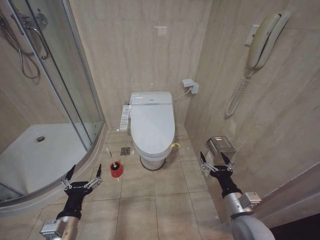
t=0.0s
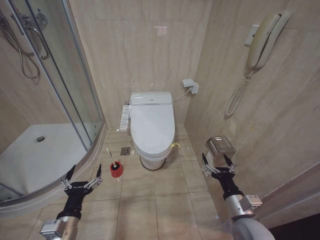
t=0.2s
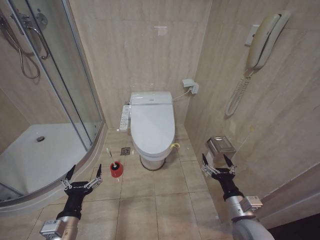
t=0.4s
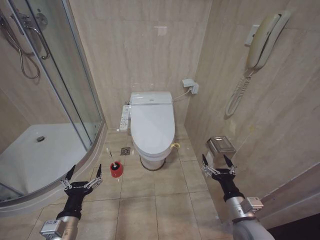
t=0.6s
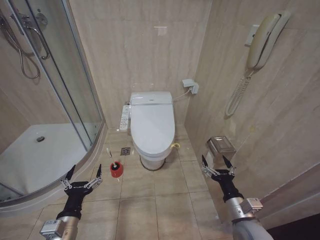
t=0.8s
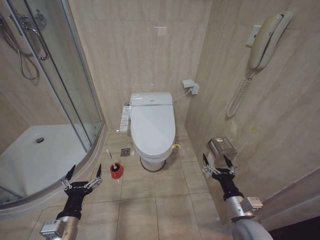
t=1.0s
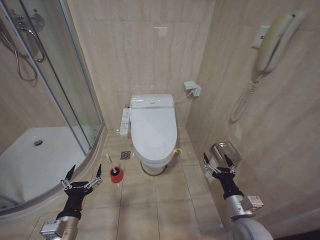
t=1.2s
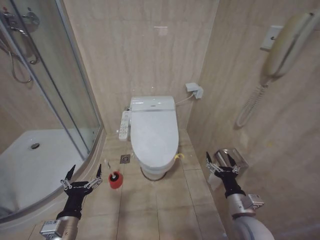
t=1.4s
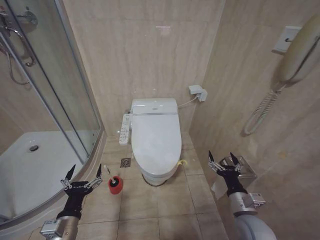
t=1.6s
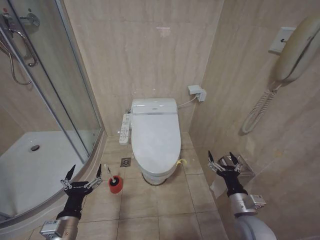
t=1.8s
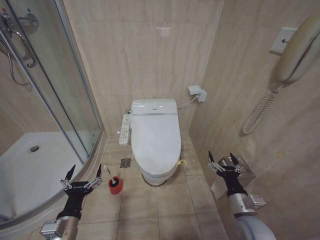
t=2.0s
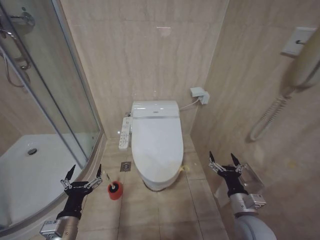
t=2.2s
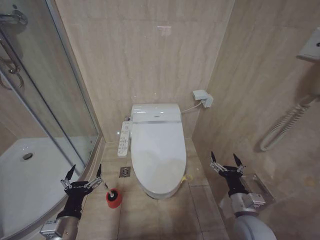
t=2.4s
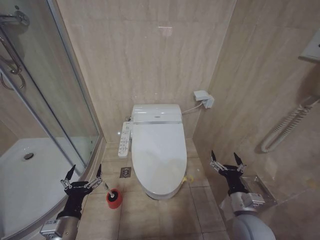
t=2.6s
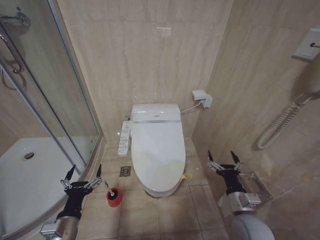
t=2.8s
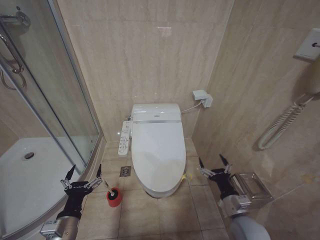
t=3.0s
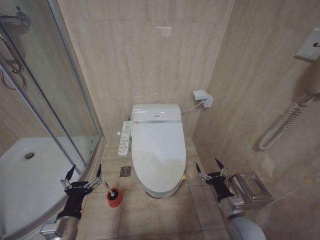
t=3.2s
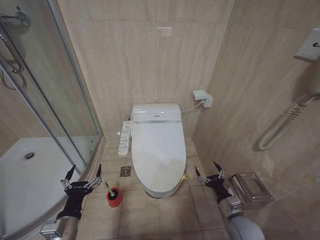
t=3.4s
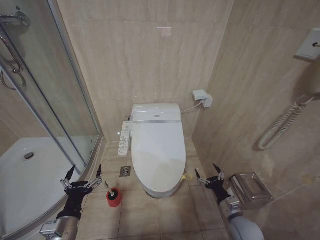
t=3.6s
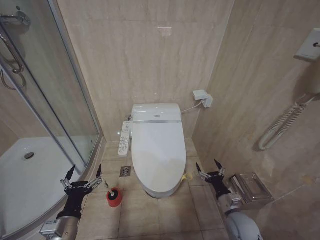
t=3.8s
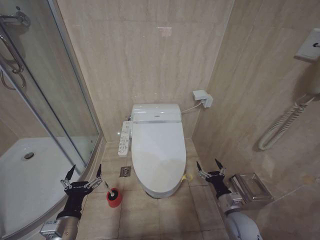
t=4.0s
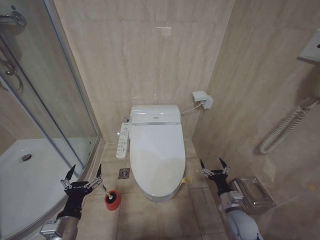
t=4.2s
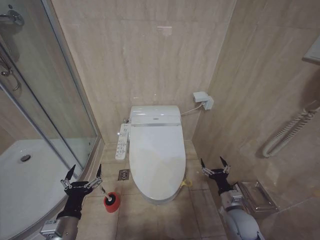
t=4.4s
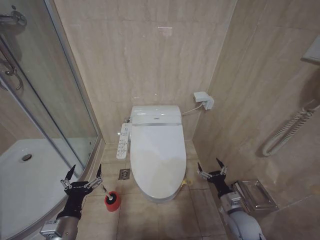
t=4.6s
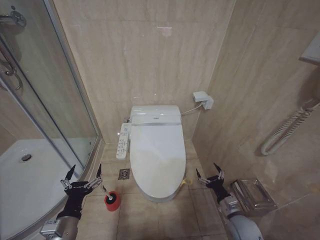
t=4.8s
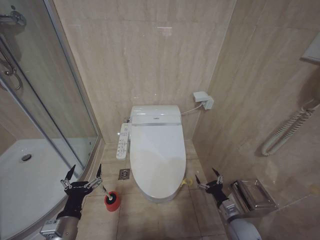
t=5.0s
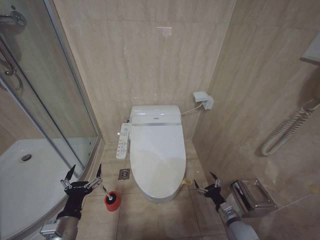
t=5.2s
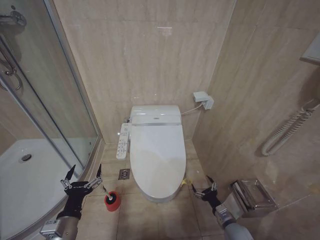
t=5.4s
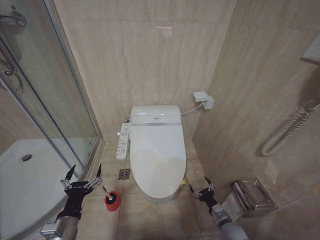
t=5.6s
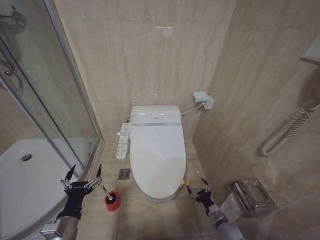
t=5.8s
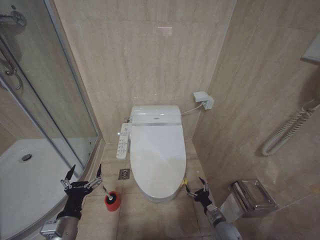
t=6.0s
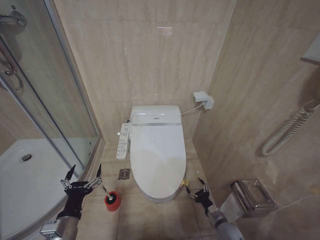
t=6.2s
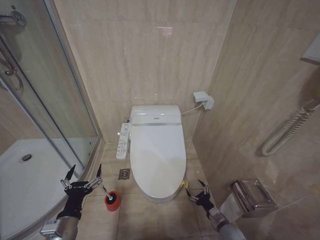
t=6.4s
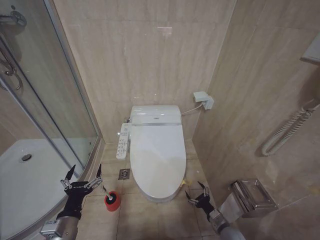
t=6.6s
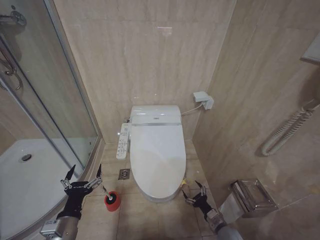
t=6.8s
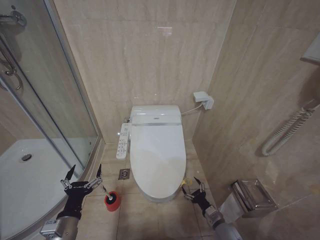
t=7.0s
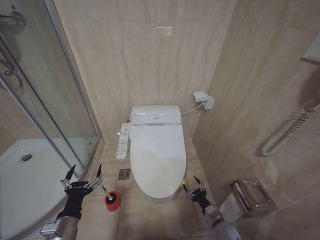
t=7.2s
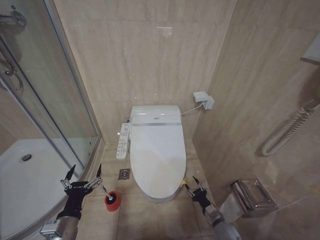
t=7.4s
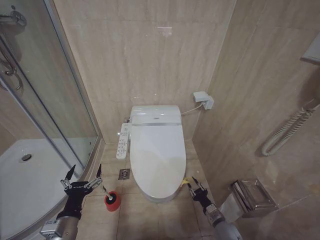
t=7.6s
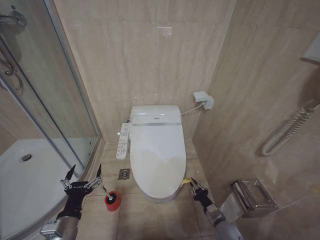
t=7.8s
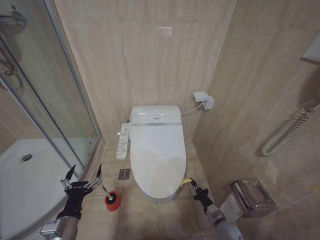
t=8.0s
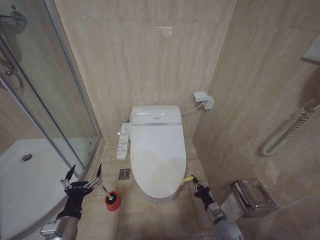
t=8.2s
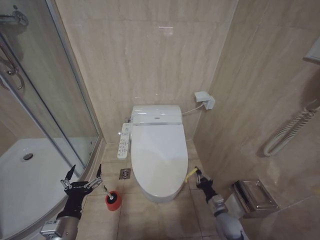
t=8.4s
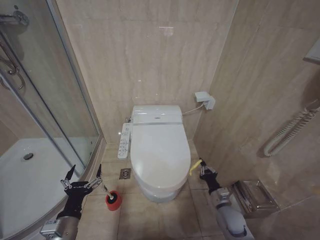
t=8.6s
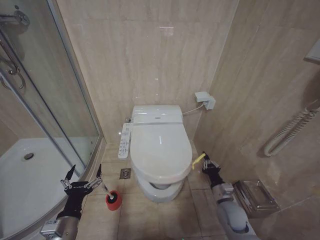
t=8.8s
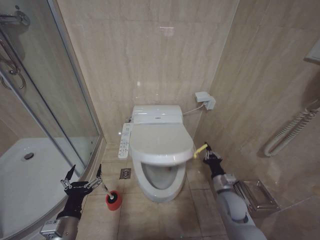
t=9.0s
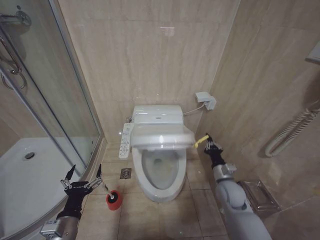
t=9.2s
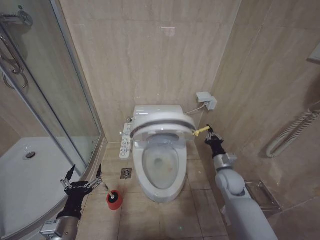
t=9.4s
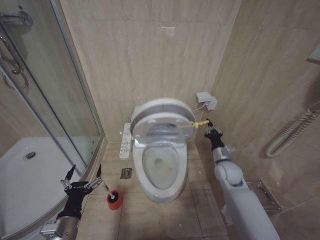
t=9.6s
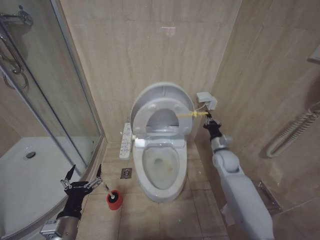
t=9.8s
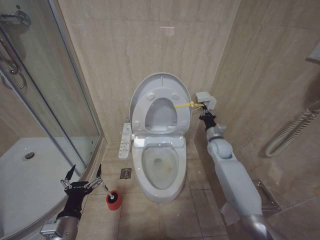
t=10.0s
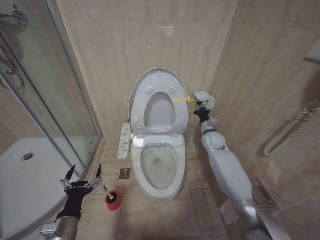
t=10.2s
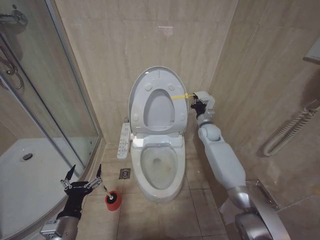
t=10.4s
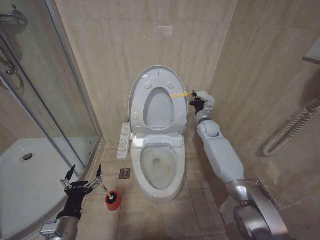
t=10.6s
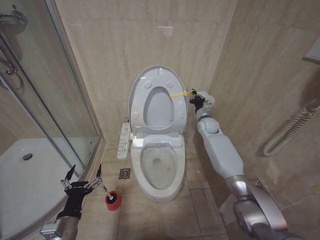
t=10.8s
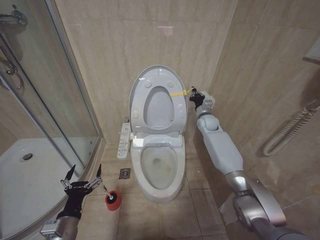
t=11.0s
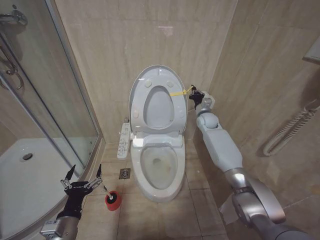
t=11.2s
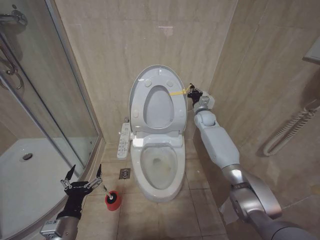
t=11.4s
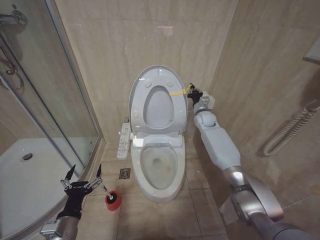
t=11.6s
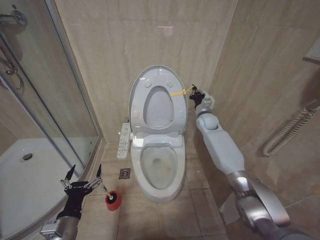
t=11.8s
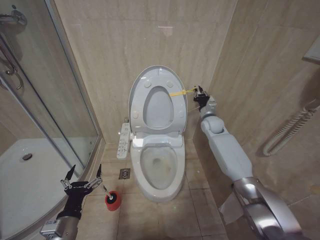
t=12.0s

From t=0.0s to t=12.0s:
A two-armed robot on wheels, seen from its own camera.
Task of the whole recording: Open the toilet lid, clean the toilet bowl with a toilet brush, close the toilet lid, and flush.
From t=1.6s to t=3.0s: The grippers stay close to where they were, moving slightly.
From t=3.0s to t=4.4s: The right gripper goes about 5 cm downward.
From t=4.4s to t=6.0s: The right gripper shifts approximately 10 cm downward.
From t=7.6s to t=9.0s: The right gripper is displaced upward by approximately 15 cm, and closes its fingers.
From t=9.0s to t=10.4s: The right gripper is displaced forward and upward by about 30 cm.
From t=10.4s to t=12.0s: The right gripper travels upward by some 5 cm.

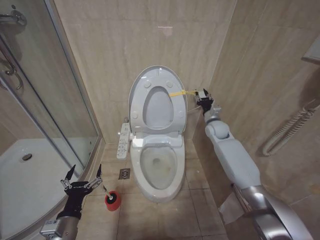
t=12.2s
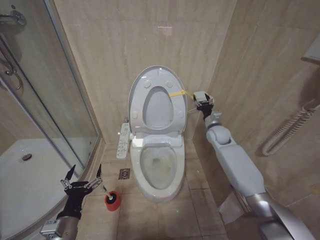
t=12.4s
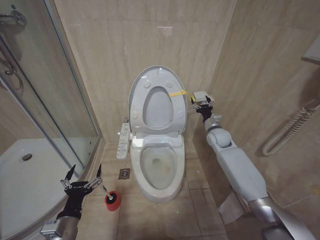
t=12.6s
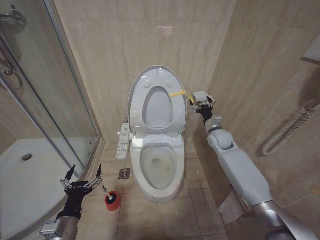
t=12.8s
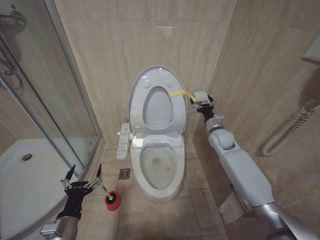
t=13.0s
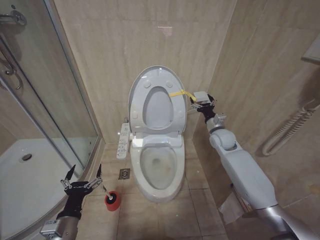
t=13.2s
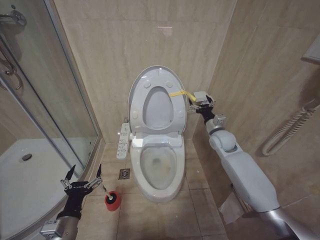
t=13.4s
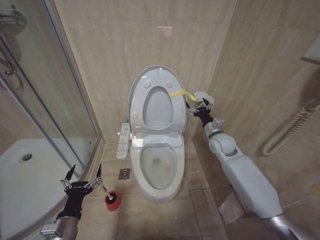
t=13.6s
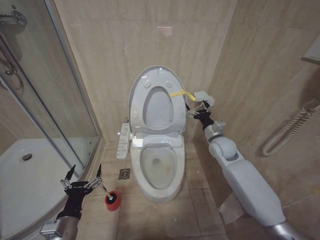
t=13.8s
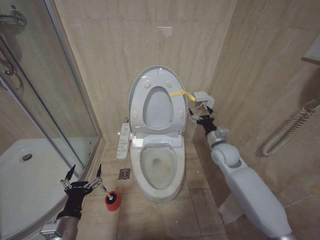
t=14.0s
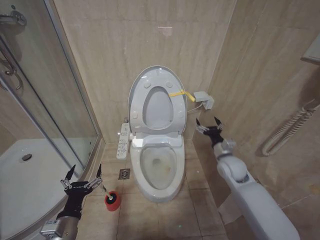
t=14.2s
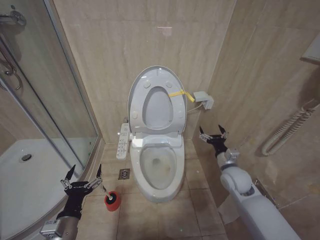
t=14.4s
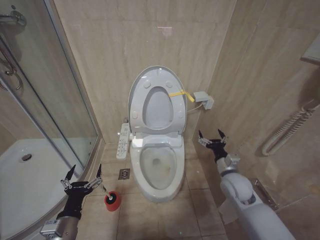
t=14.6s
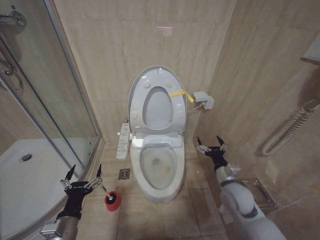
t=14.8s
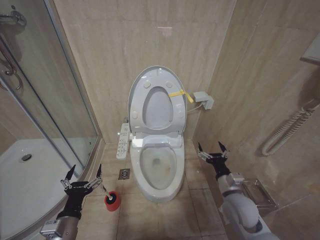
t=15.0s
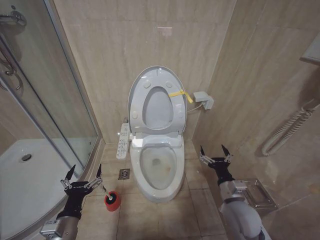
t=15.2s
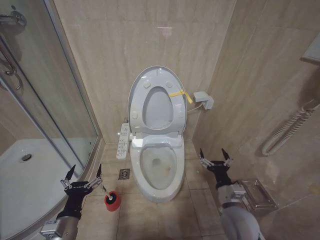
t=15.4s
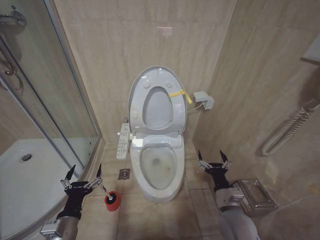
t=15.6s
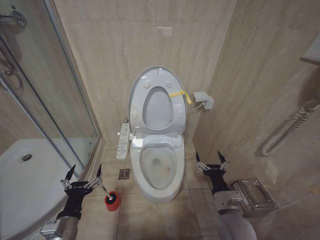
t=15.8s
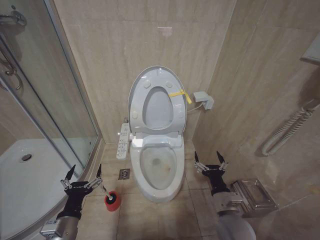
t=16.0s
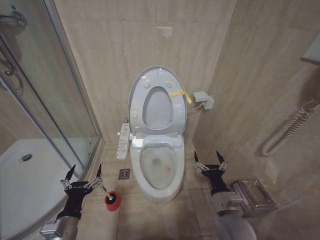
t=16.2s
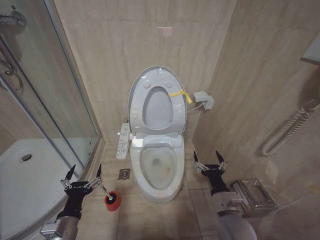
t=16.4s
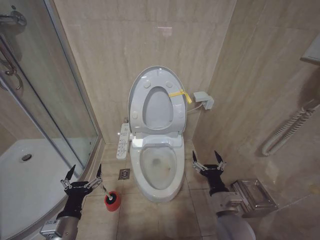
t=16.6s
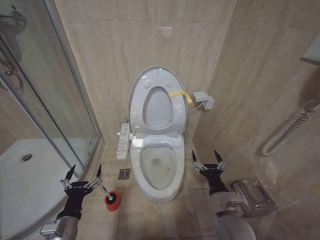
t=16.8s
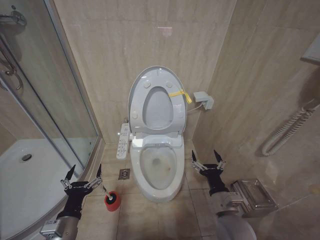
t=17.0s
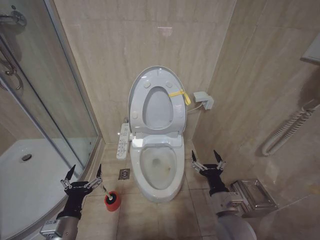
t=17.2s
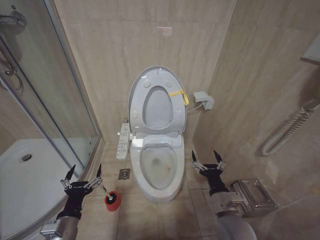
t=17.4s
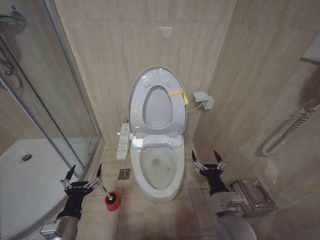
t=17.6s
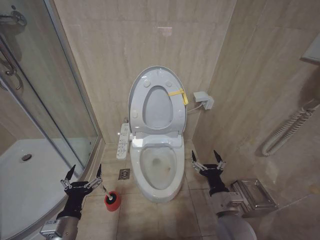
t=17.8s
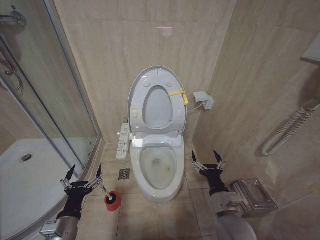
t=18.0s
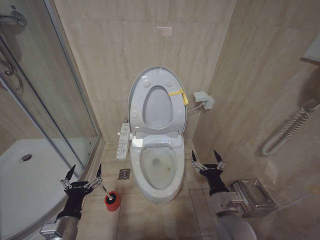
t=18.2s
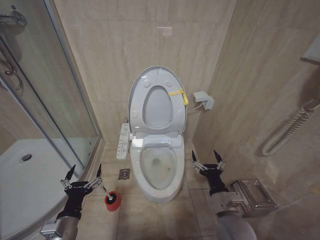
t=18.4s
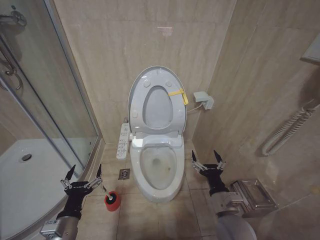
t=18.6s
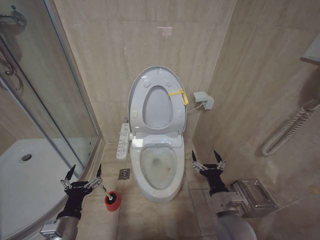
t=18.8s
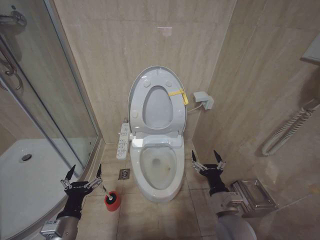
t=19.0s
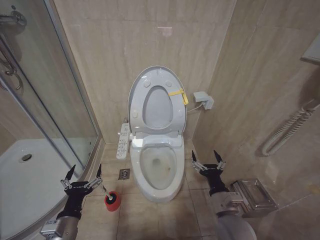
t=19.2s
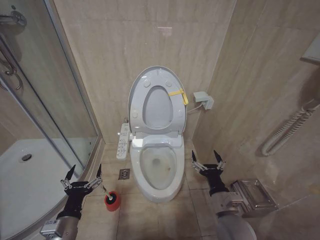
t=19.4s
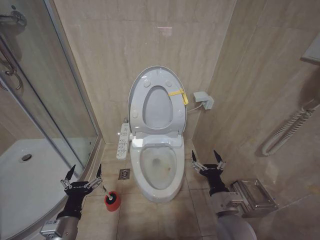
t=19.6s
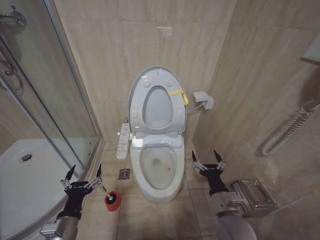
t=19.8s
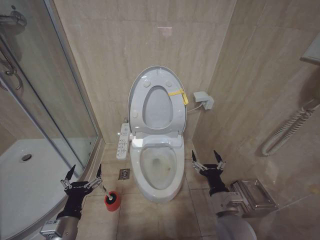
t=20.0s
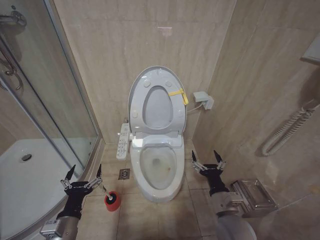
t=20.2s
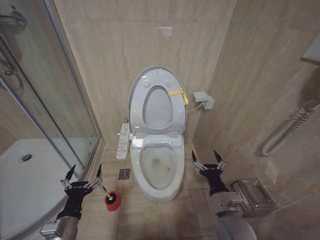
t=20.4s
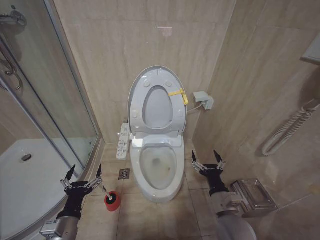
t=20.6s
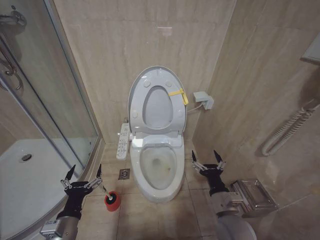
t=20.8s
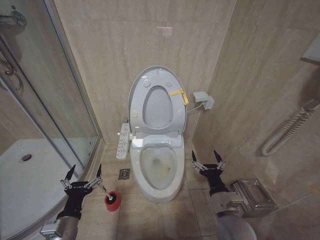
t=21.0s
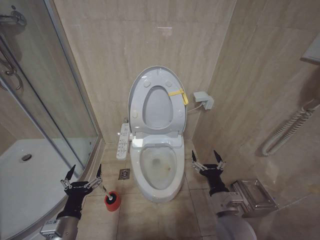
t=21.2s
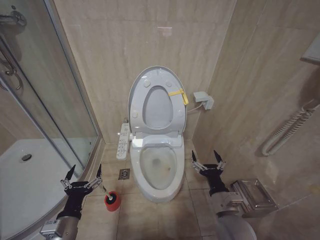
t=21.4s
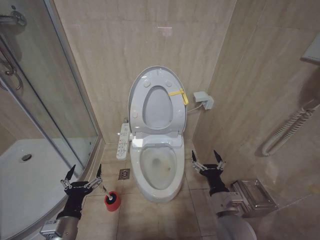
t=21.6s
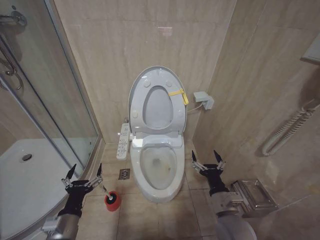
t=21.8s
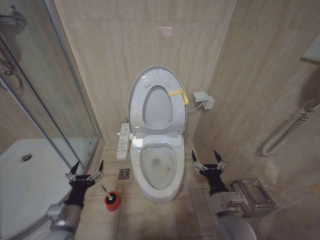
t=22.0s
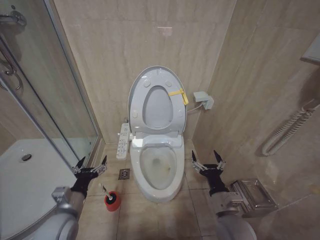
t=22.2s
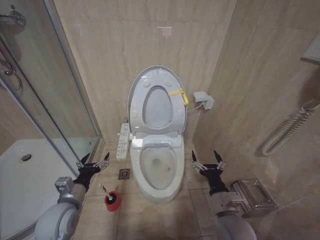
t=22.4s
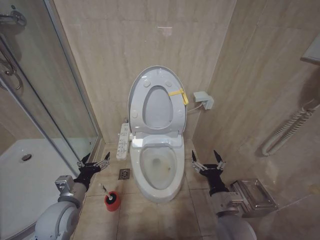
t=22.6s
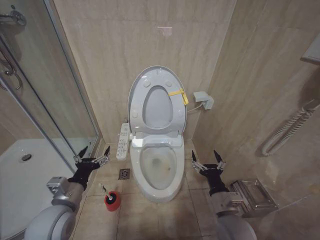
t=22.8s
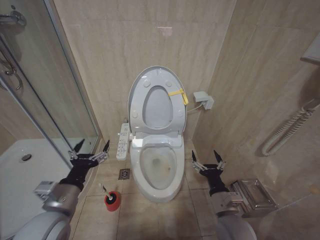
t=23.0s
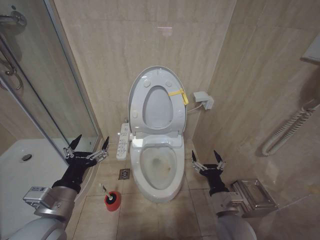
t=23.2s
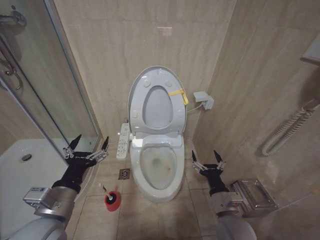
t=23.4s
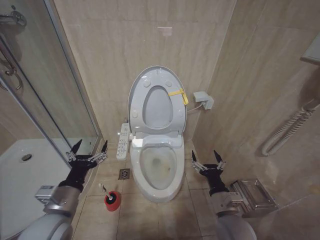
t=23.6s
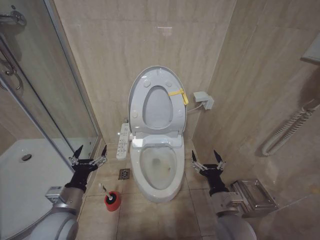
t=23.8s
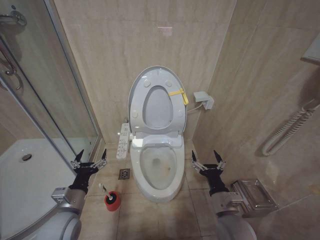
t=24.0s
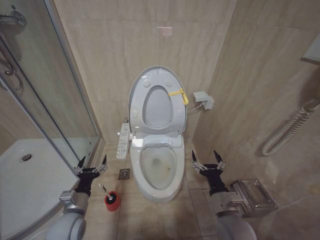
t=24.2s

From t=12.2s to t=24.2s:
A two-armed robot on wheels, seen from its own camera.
Task of the whole recording: Open the toilet lid, clean the toilet bowl with a toilet brush, close the toilet lid, and flush.
From t=12.2s to t=13.8s: The right gripper moves backward, some 10 cm, and opens up.
From t=13.8s to t=15.2s: The right gripper moves backward and downward, some 25 cm.
From t=15.2s to t=16.6s: The right gripper moves roughly 5 cm.
From t=16.6s to t=21.2s: The two grippers keep their place.
From t=21.2s to t=22.6s: The left gripper moves forward, roughly 10 cm.
From t=22.6s to t=24.2s: The left gripper moves downward, roughly 5 cm.
